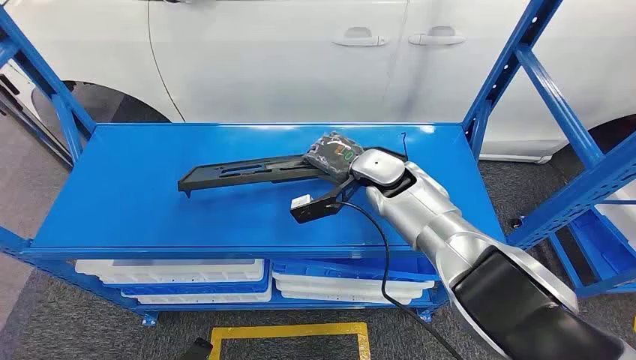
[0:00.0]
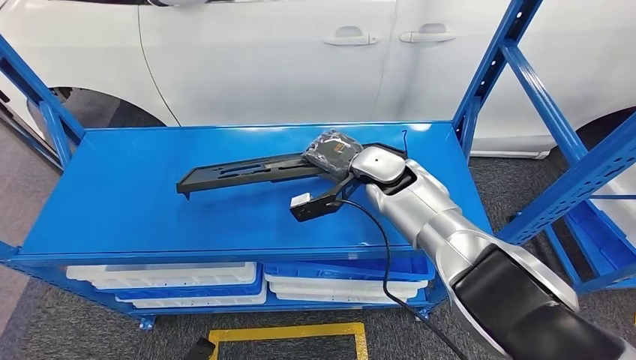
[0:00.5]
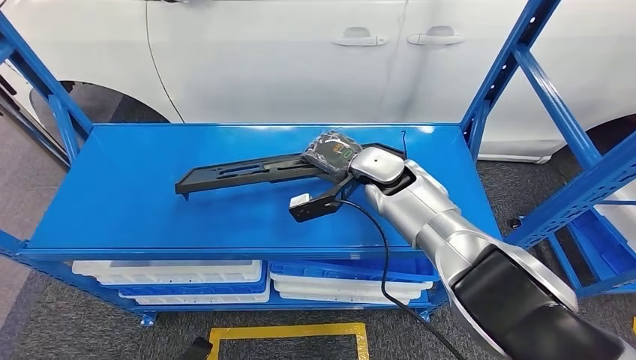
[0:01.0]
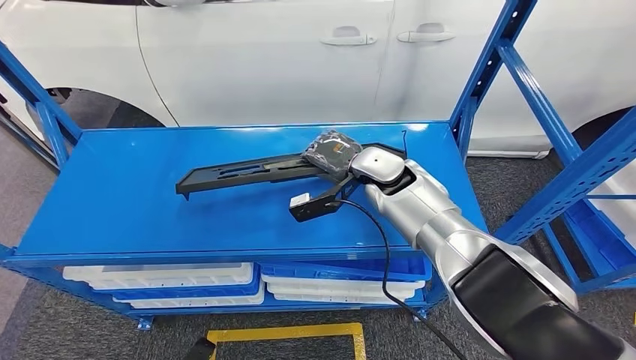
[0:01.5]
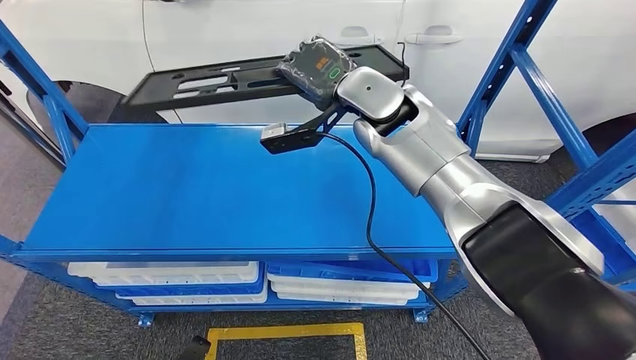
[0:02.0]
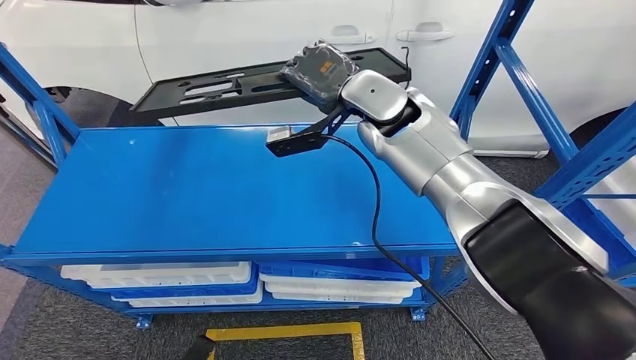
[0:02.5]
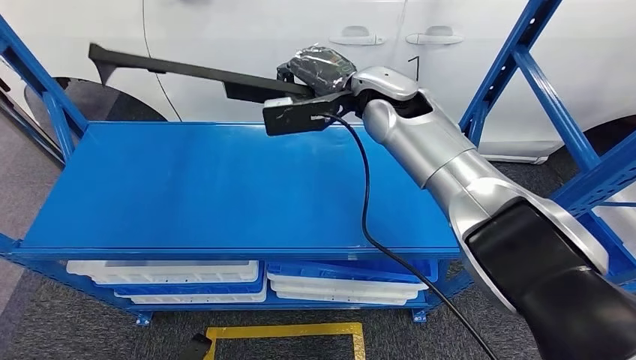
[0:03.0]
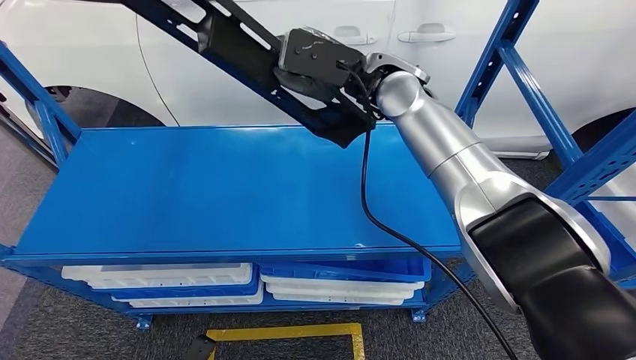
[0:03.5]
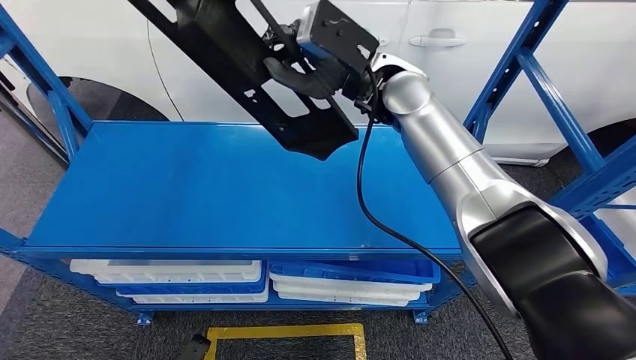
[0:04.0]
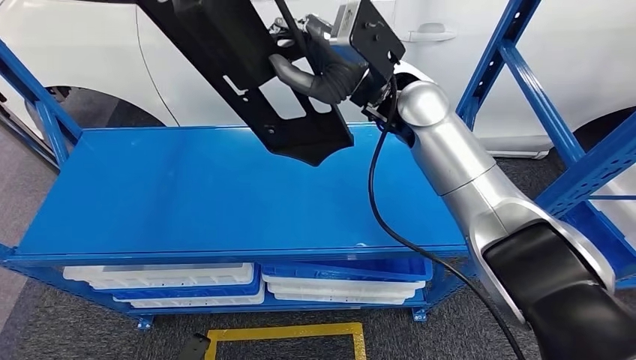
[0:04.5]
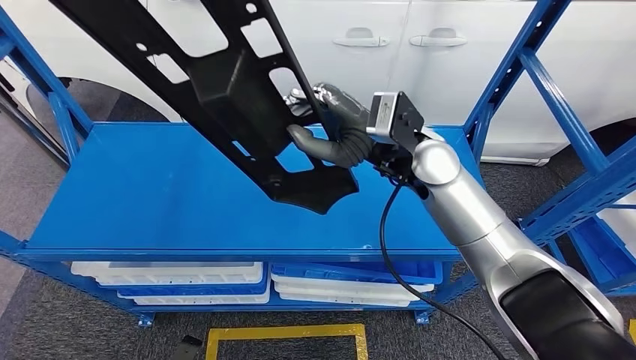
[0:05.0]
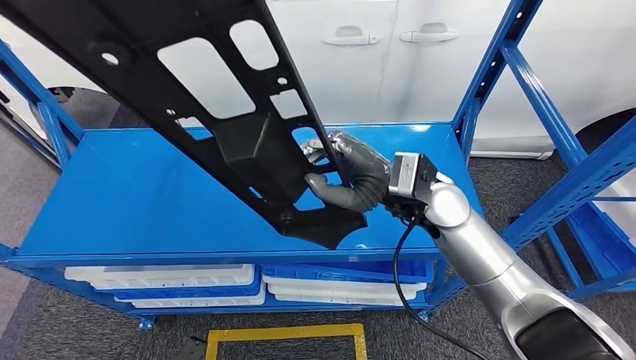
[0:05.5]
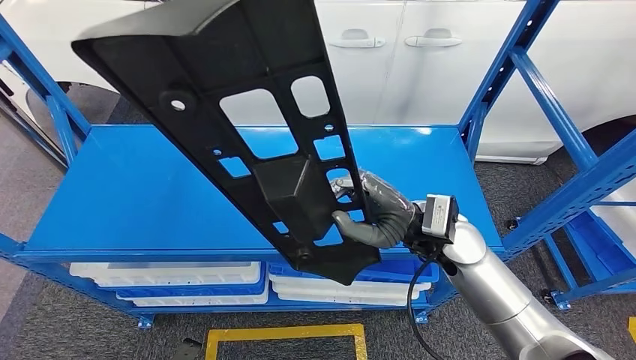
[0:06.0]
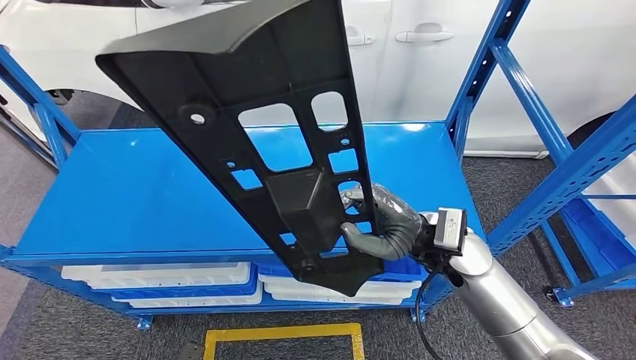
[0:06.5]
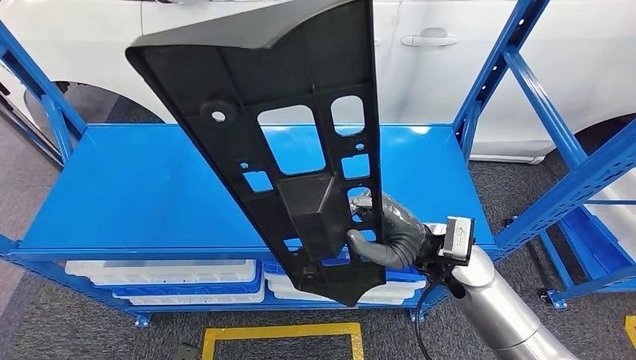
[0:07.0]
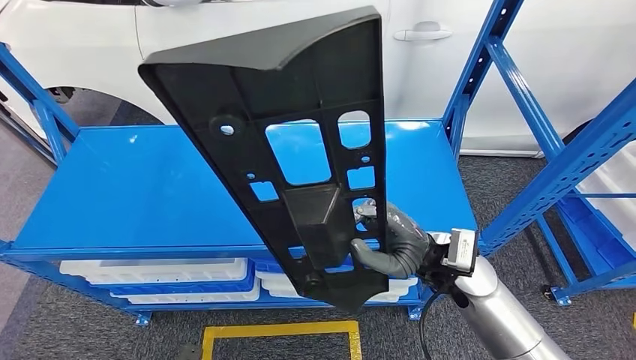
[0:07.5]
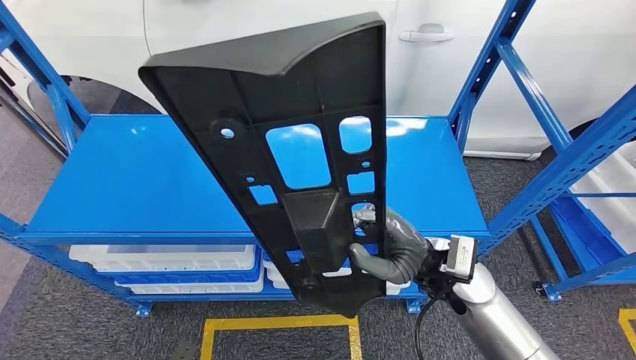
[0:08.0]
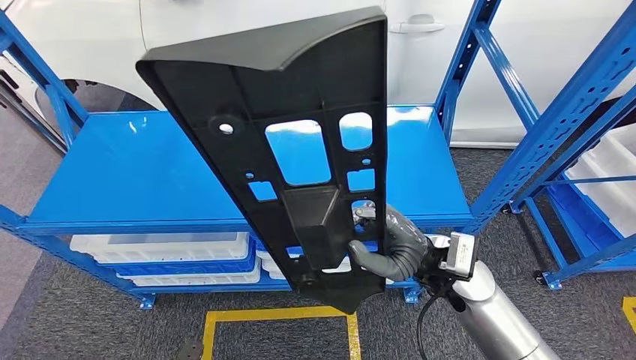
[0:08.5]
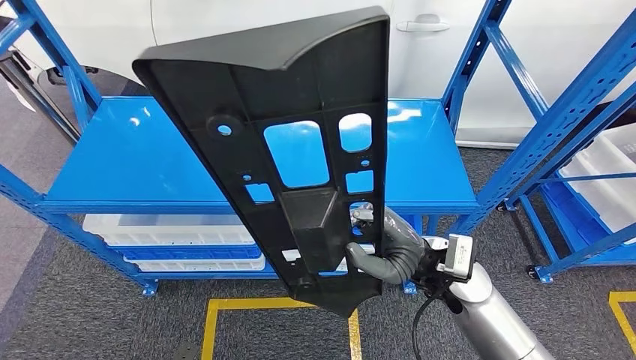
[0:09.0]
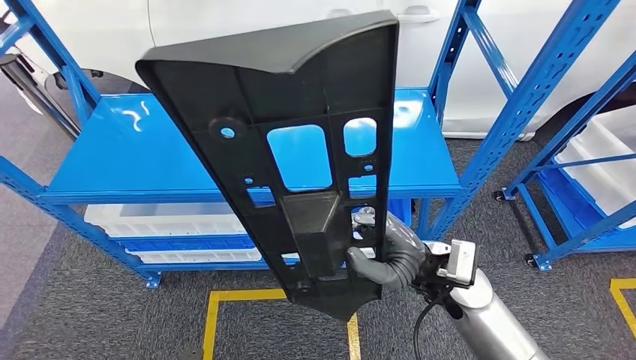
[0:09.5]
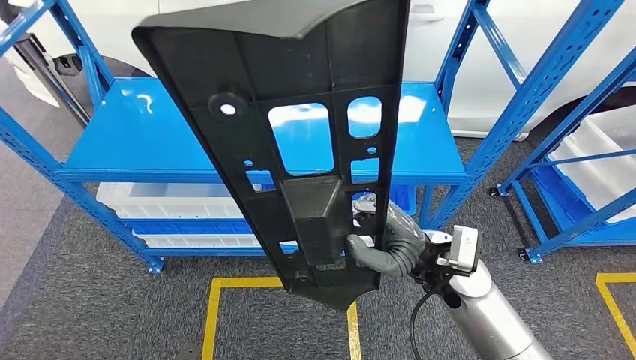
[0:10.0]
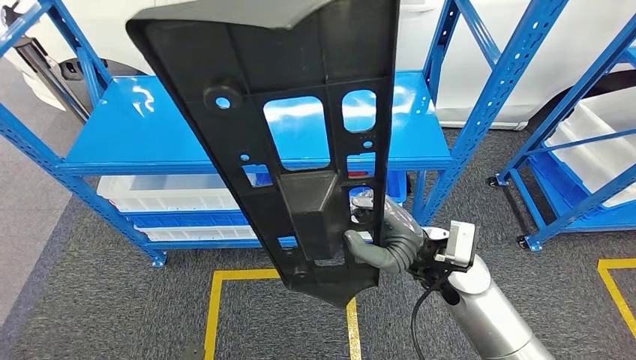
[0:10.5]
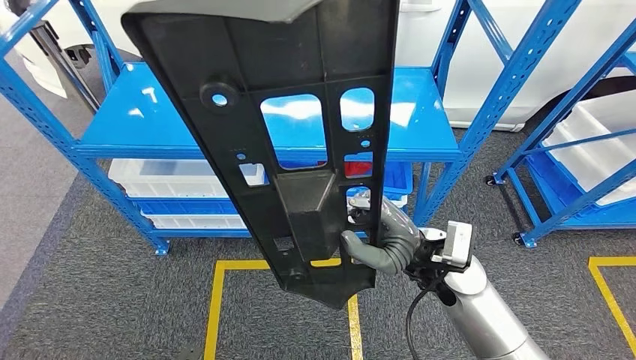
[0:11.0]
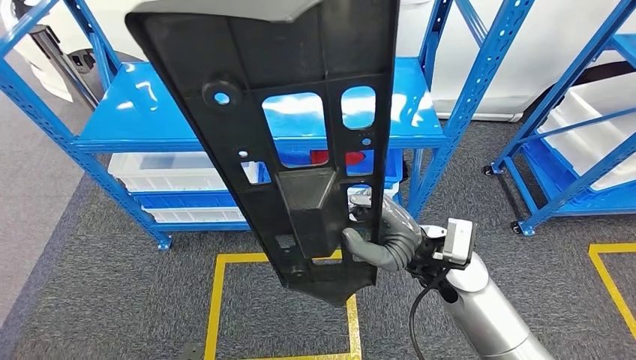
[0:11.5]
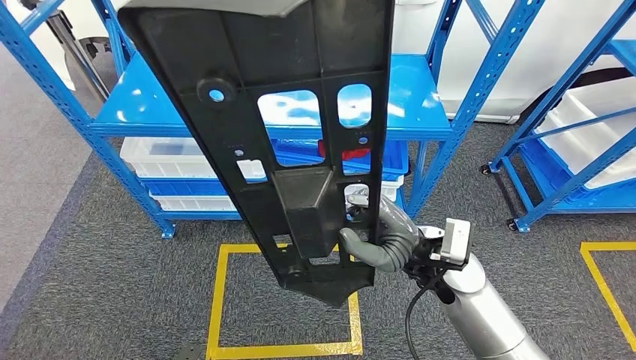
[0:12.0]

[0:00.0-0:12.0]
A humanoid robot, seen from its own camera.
Step, 0:00.0 to 0:03.0: Pick up the large material from the shelf.

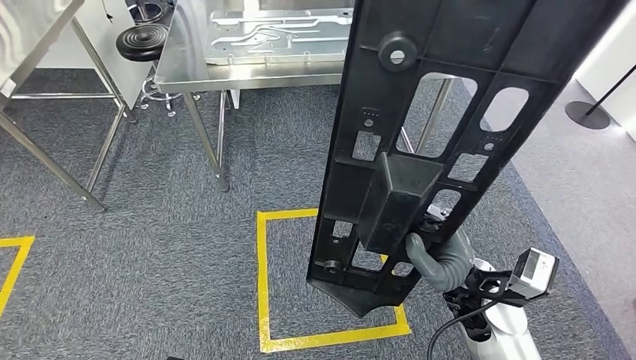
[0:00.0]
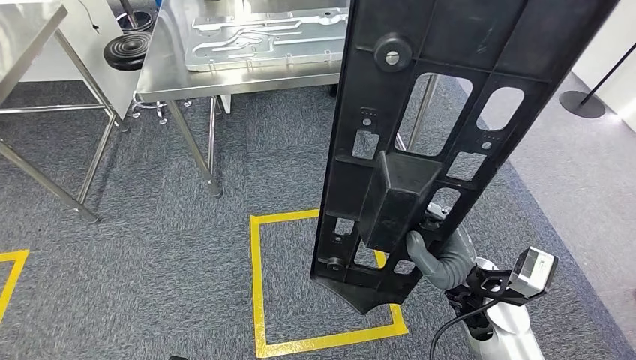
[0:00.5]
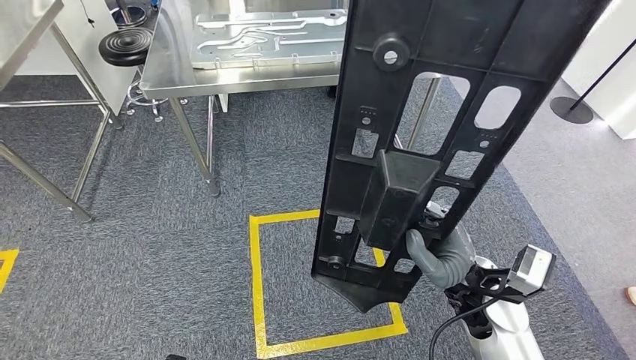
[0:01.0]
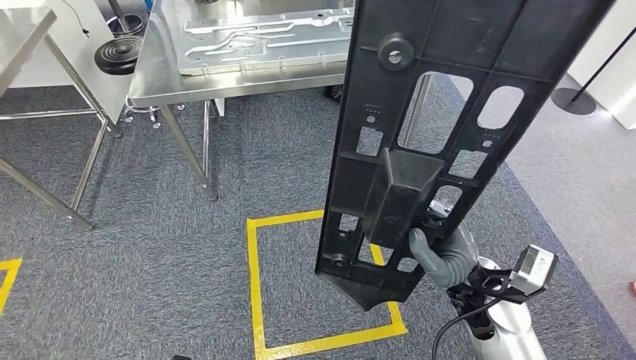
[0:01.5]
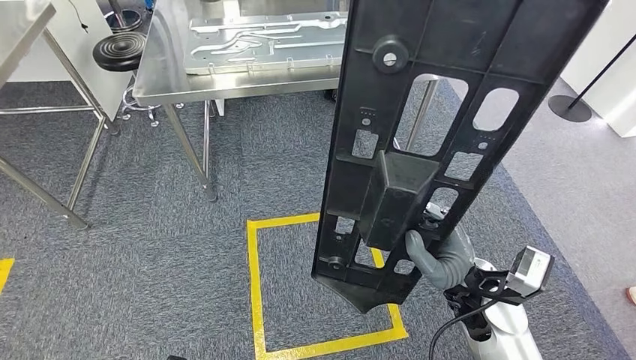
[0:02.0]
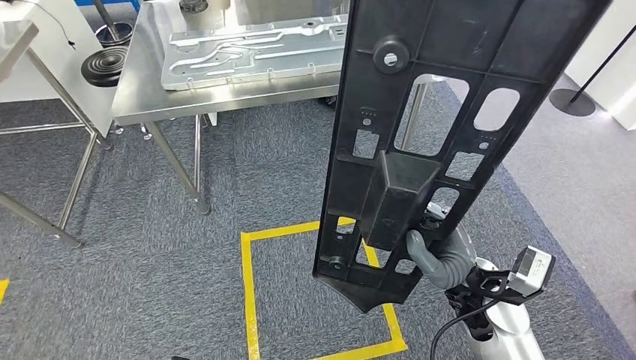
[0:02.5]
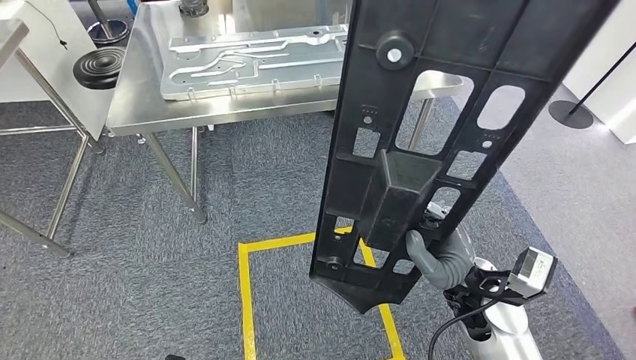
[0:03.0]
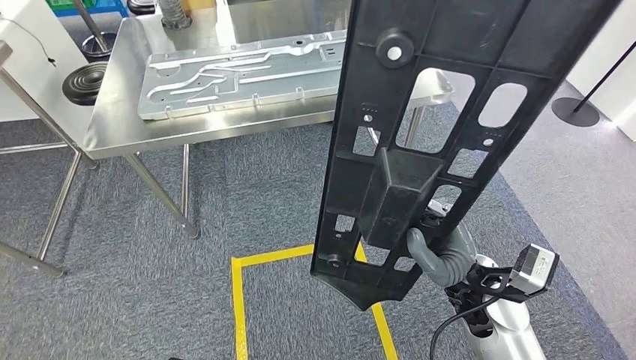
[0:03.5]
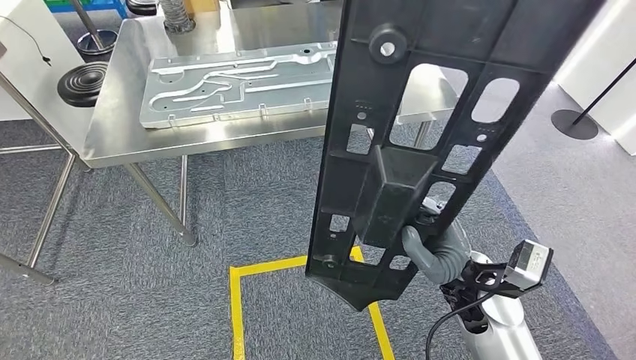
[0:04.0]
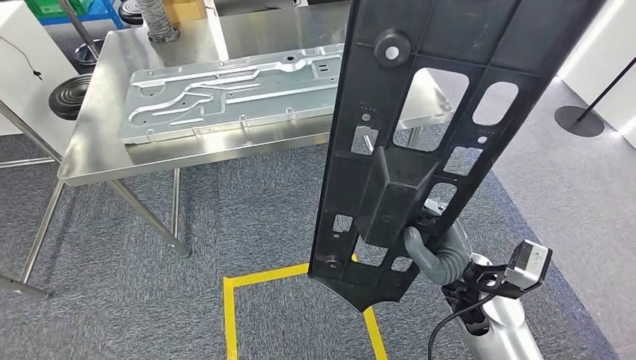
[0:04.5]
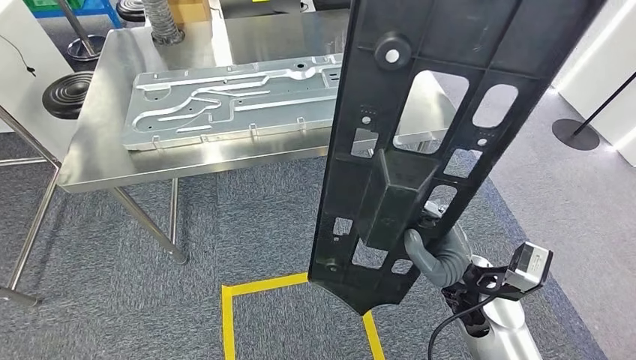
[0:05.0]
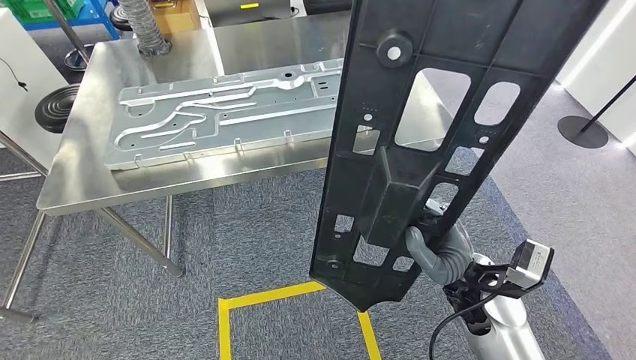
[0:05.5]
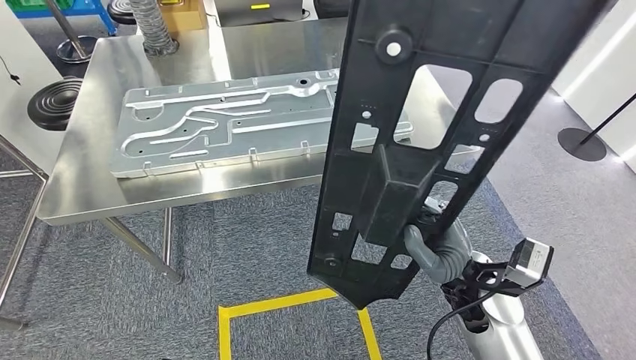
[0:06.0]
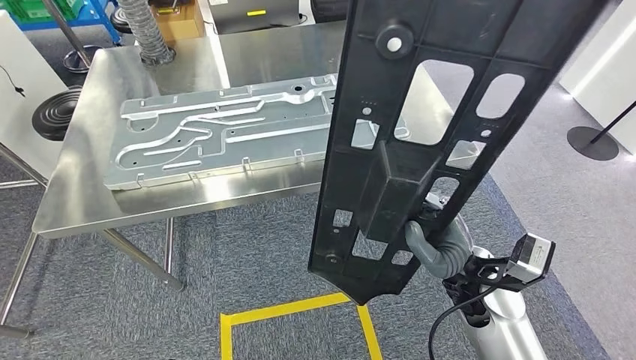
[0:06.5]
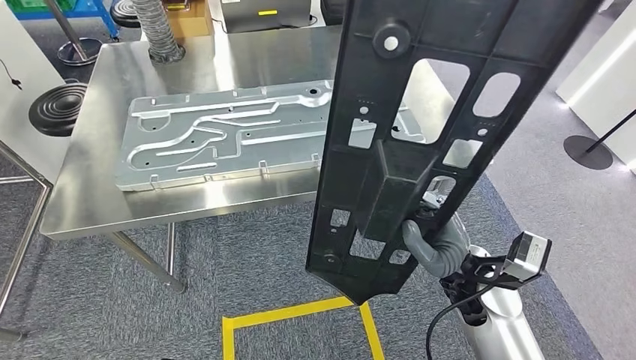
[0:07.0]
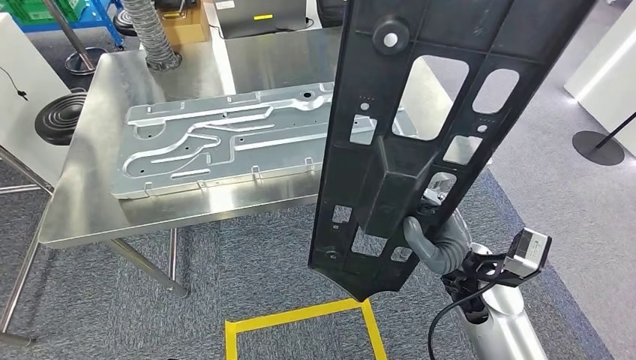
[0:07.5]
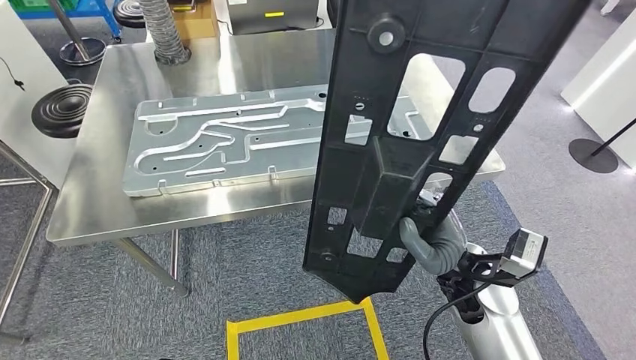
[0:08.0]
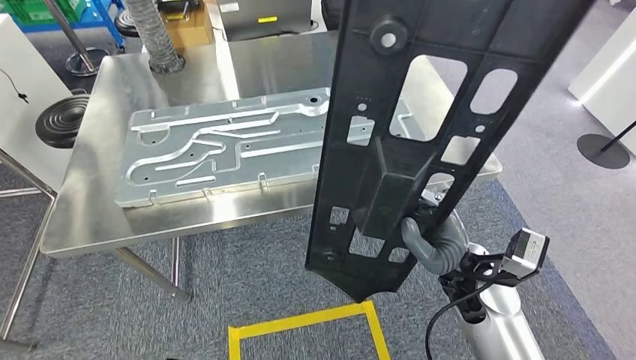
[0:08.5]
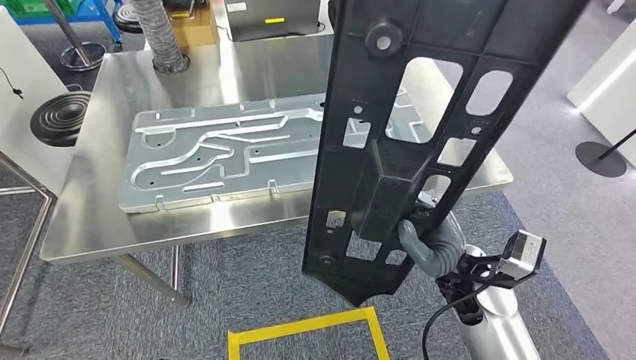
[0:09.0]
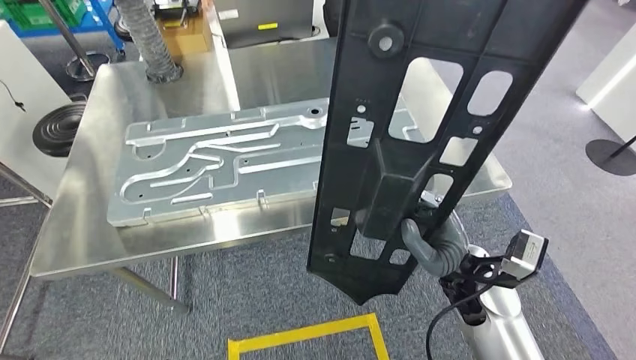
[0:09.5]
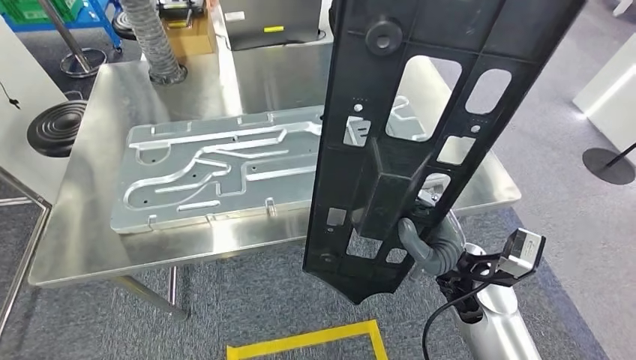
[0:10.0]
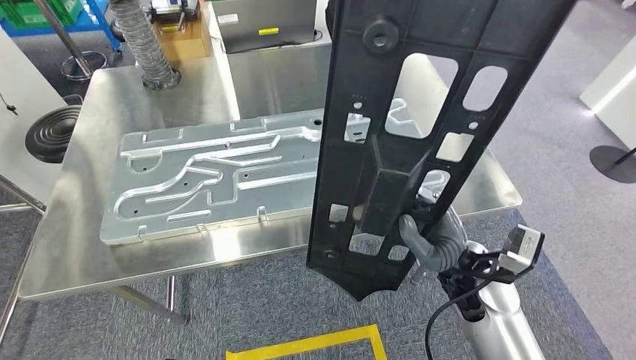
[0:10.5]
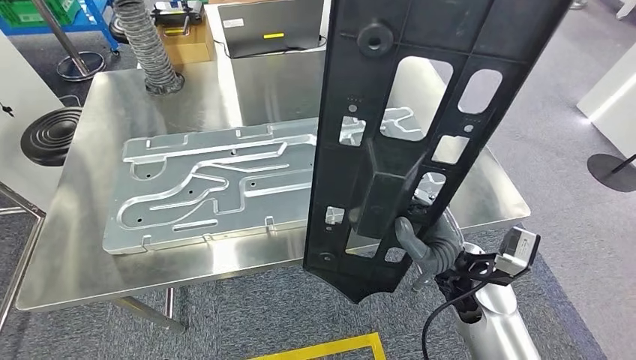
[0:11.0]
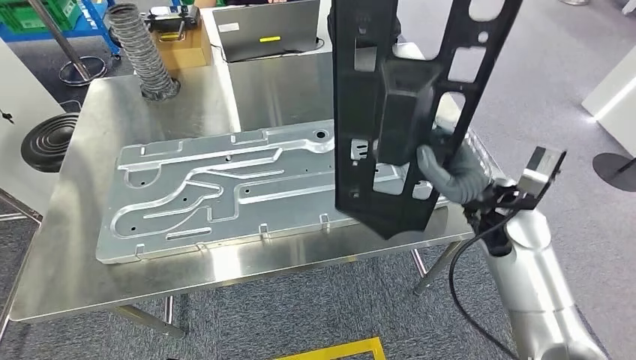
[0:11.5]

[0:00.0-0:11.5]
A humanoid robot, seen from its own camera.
Step, 0:00.0 to 0:08.5: Move the large material to the front of the workbench.
